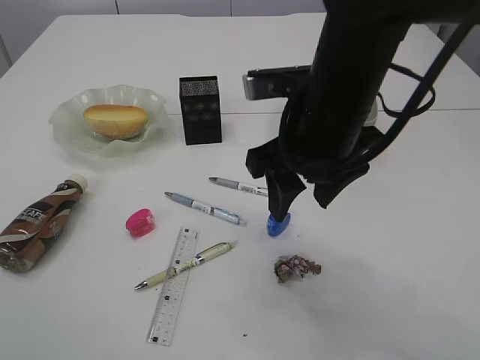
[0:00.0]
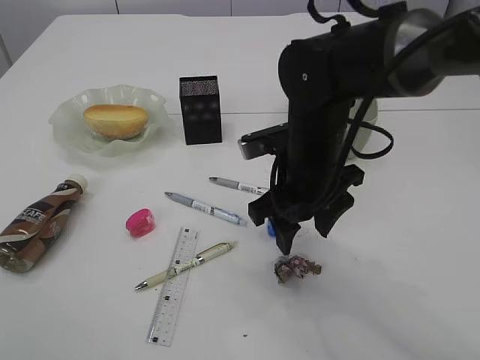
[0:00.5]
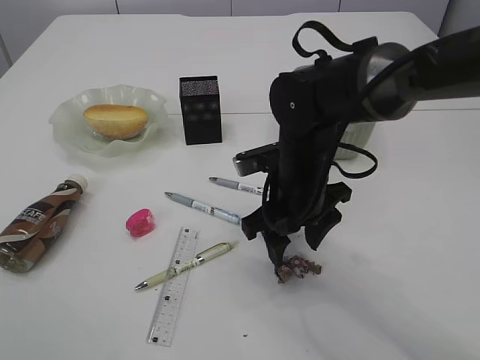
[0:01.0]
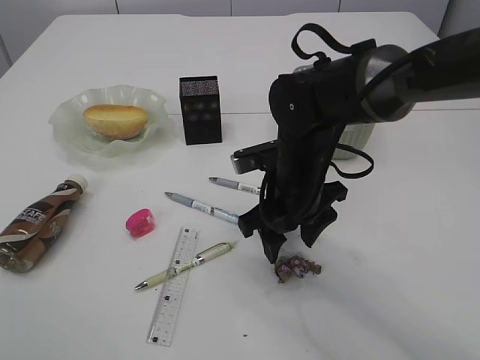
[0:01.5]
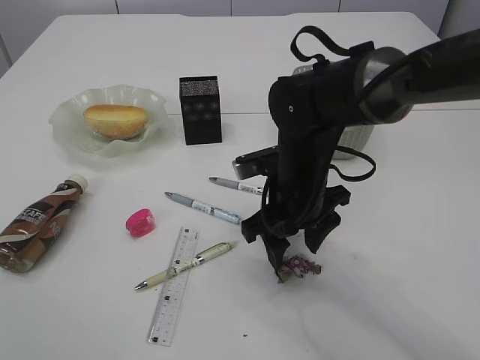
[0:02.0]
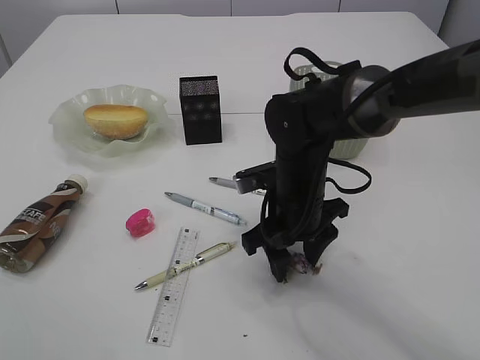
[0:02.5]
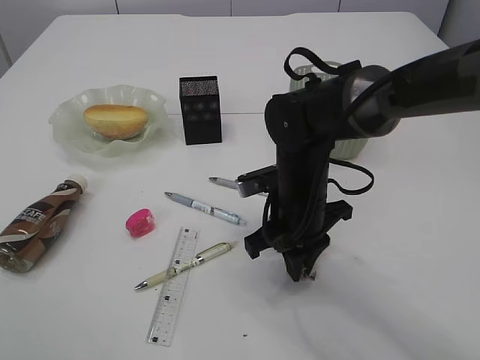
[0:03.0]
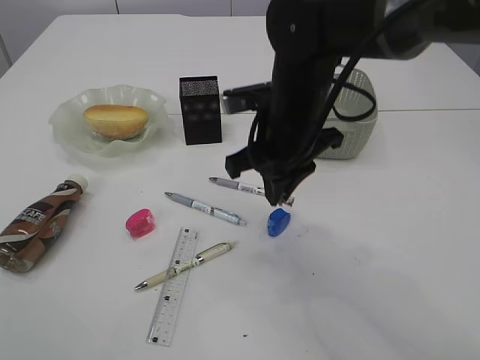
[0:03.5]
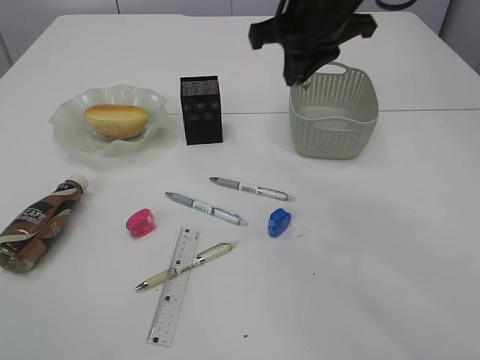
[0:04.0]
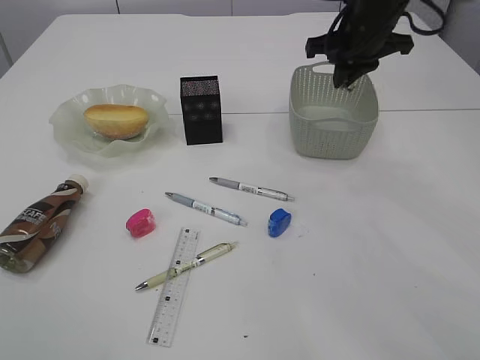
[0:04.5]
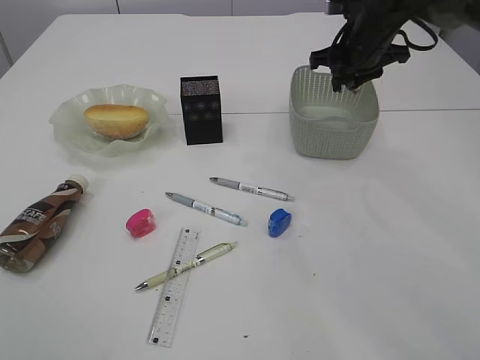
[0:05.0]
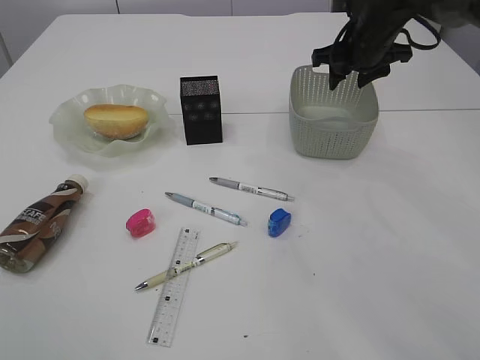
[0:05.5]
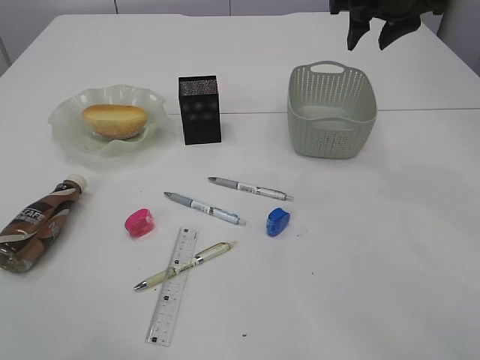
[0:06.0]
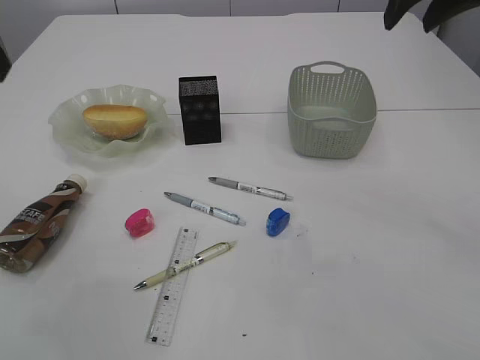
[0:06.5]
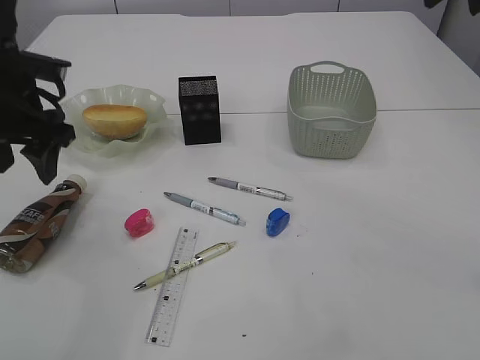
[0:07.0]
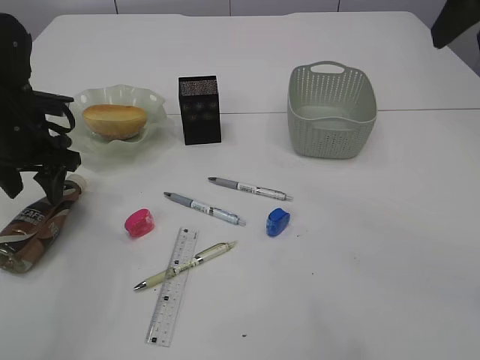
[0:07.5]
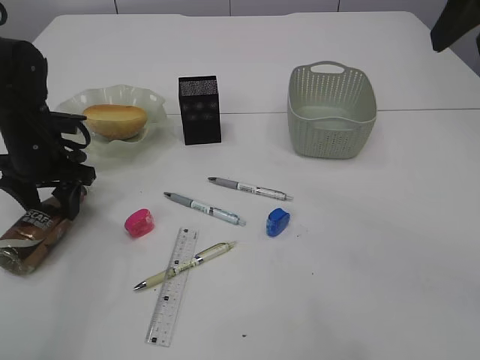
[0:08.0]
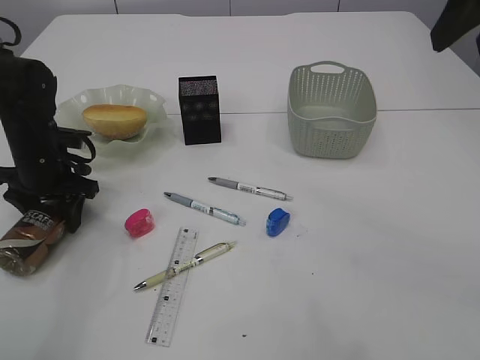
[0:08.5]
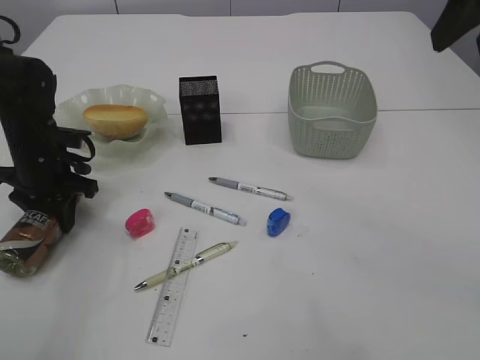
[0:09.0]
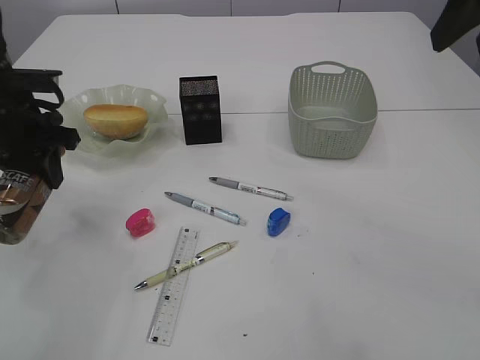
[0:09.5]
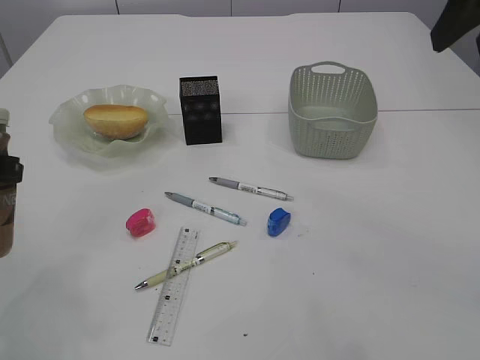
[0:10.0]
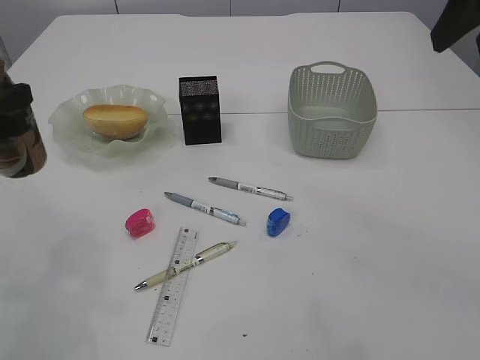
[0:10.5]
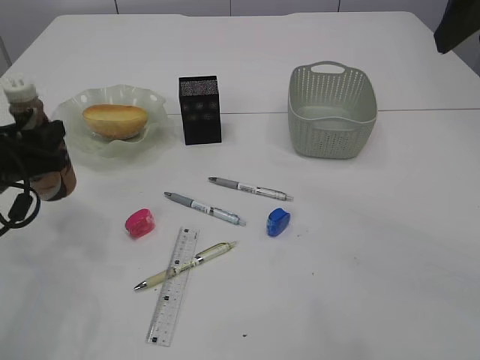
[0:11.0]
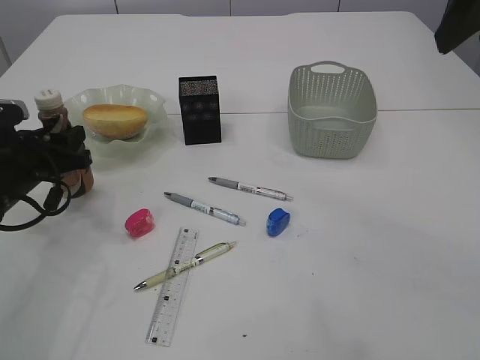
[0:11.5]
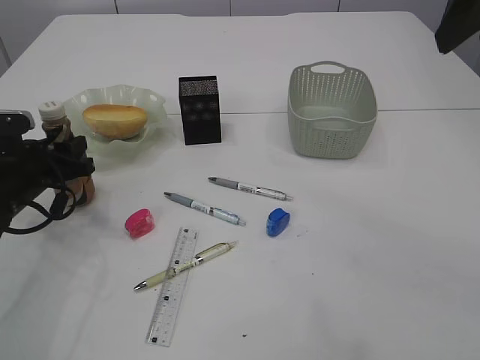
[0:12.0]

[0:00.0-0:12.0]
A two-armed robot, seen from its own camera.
Step, 0:00.0 to 0:03.0: Pick up the waste paper.
Step, 0:03.5 to 0:05.0: Place the waste paper in the basket.
Step, 0:05.5 to 0:09.5: Pick up the bottle with the left arm.
0:00.0 to 0:02.0: The right gripper is displaced downward by about 10 cm.
0:02.0 to 0:04.0: The right gripper shifts approximately 20 cm upward, and closes.
0:04.0 to 0:06.0: The right gripper heads to the right and forward, covering some 15 cm, and opens its fingers.
0:06.0 to 0:08.0: The right gripper travels backward and upward by some 20 cm, while the left gripper travels downward and forward by about 35 cm.
0:08.0 to 0:10.0: The left gripper goes roughly 15 cm backward and upward, and closes.
0:10.0 to 0:12.0: The left gripper goes about 15 cm downward and forward.

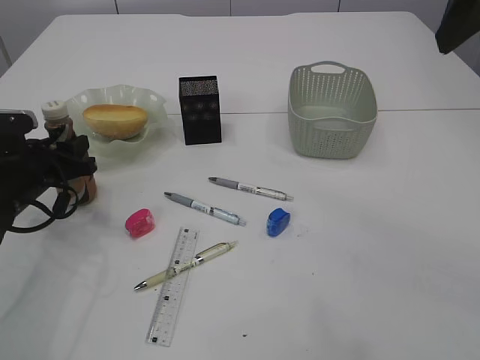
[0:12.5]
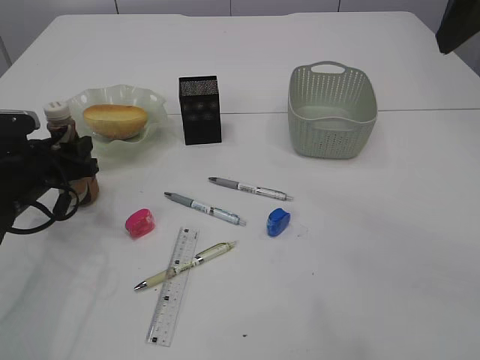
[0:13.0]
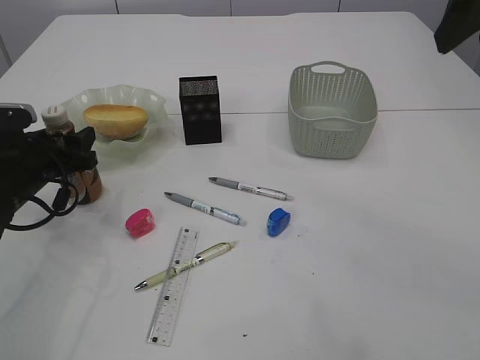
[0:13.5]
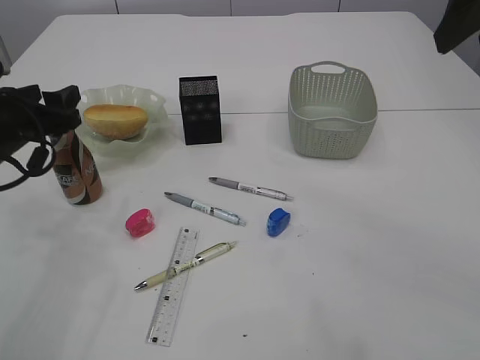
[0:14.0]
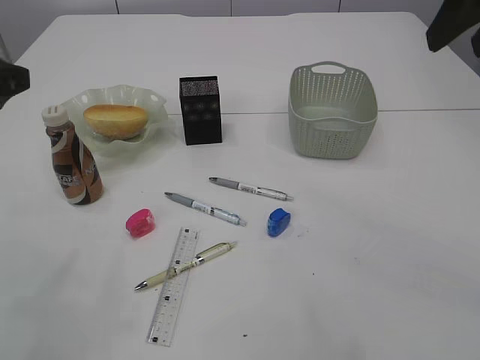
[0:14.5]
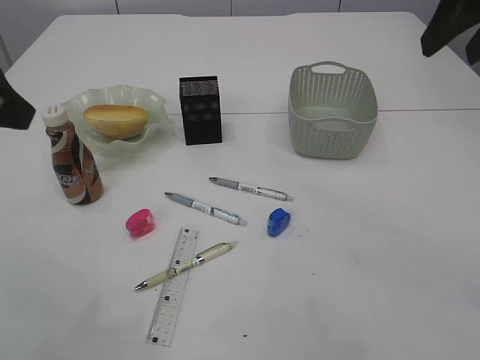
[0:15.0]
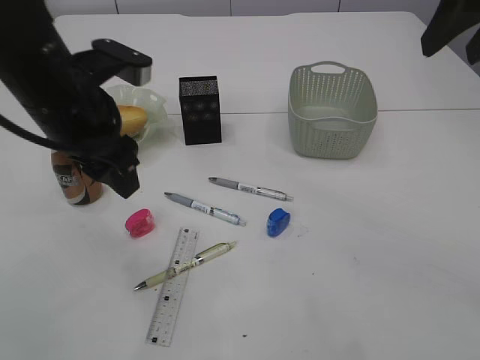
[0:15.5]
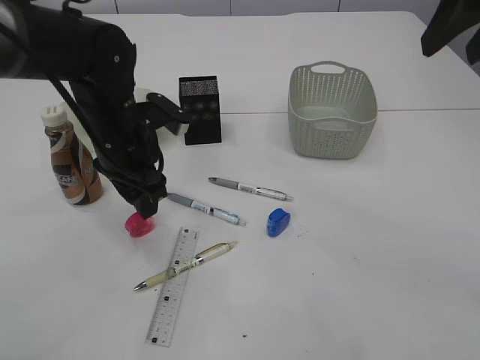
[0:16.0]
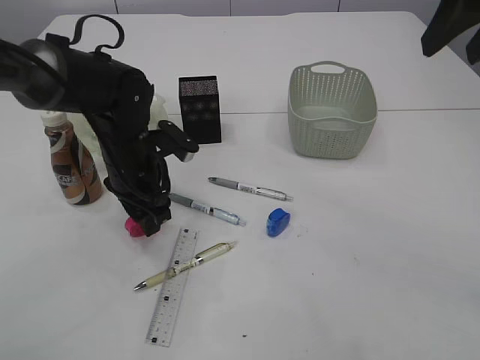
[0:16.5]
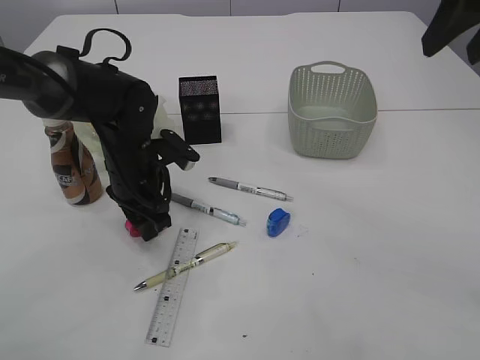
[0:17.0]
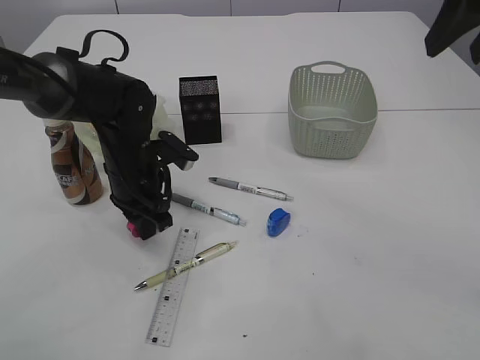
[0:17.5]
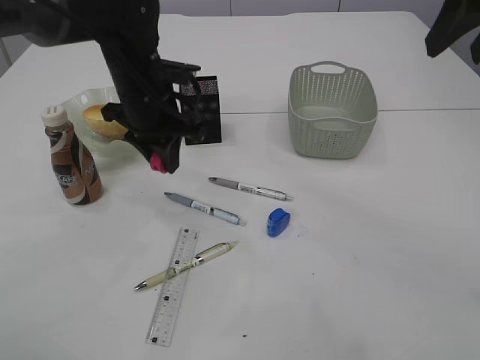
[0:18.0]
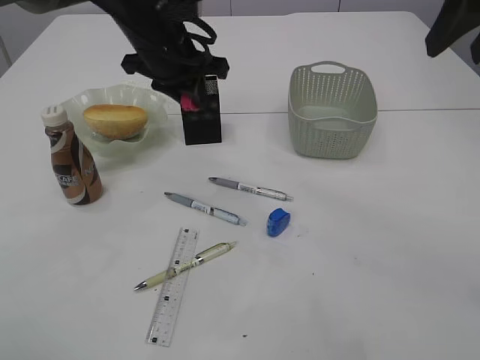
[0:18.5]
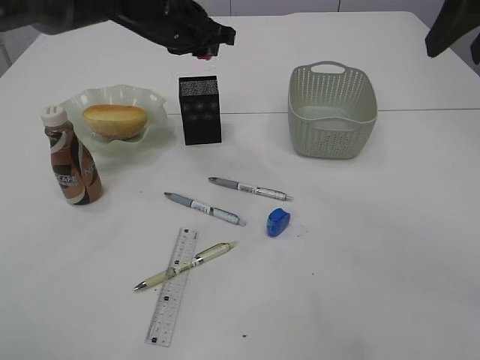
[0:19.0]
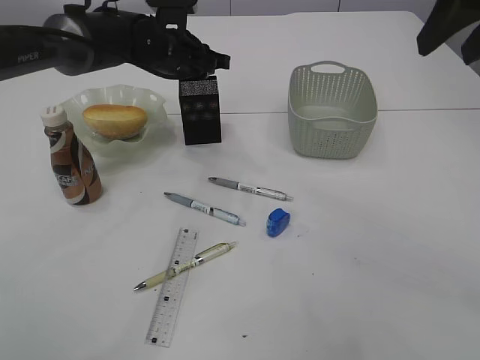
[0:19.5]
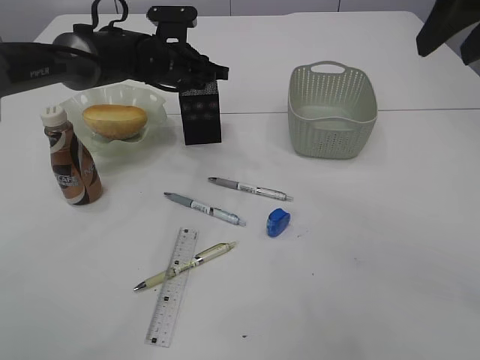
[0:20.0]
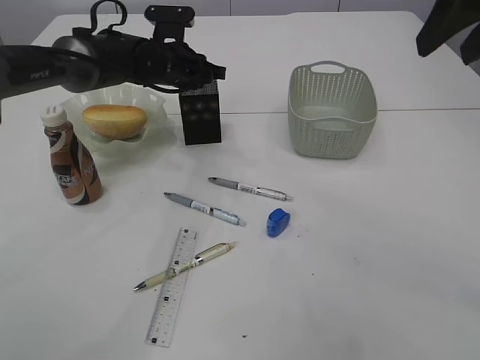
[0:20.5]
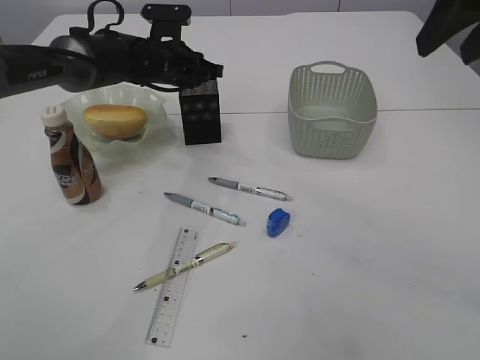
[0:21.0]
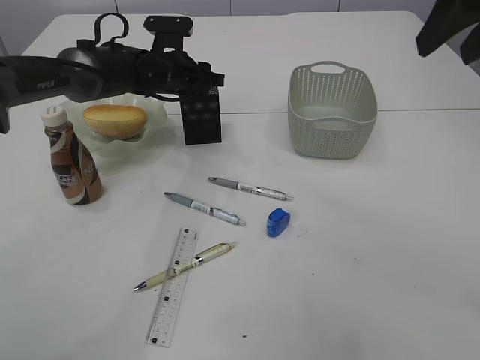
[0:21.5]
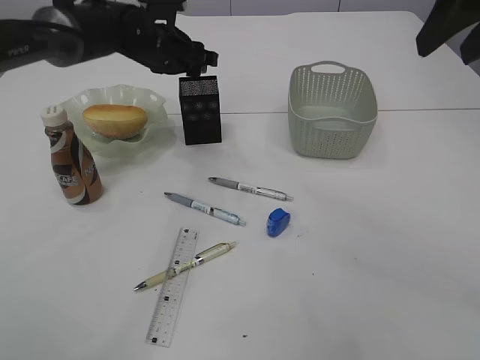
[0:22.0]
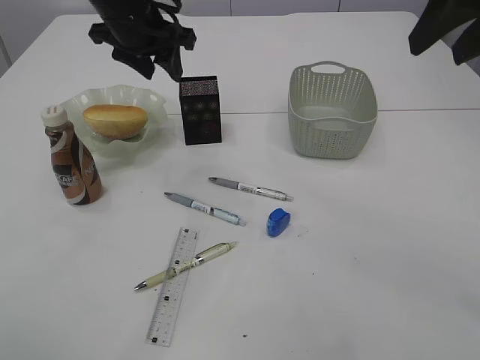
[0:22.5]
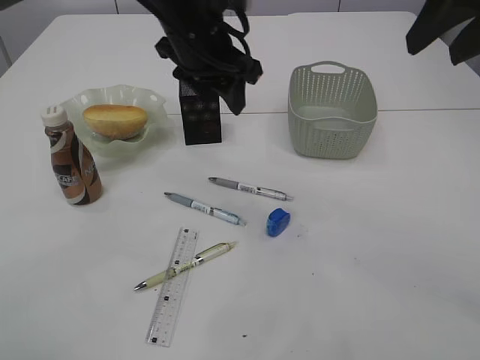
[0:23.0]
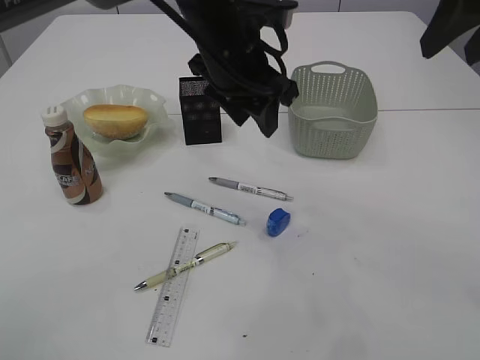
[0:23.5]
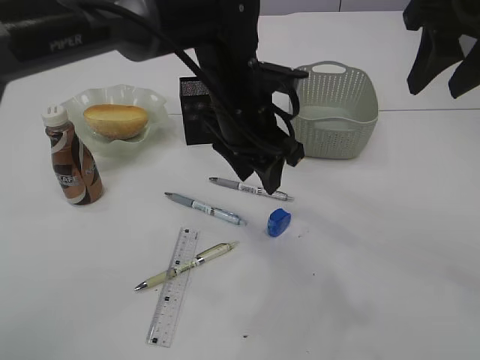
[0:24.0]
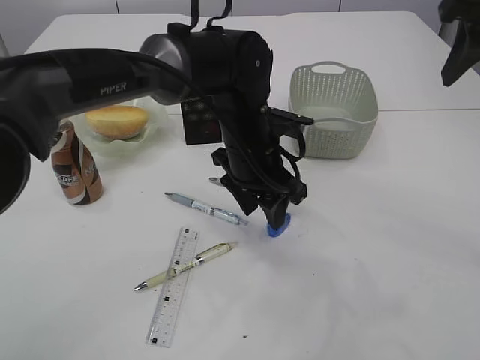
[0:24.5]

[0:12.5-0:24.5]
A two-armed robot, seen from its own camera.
Step, 0:14.5 to 0:18.0: Pick up the red pencil sharpener.
Step, 0:18.5 to 0:21.5: Place the red pencil sharpener into the pen holder.
0:12.5 to 0:14.5: The left gripper goes approximately 20 cm upward and backward, and opens its fingers.
0:14.5 to 0:16.5: The left gripper heads downward, to the right and forward, covering approximately 25 cm.
0:16.5 to 0:18.5: The left gripper shifts approximately 15 cm upward and forward, and closes up.
0:18.5 to 0:20.5: The left gripper heads forward and downward, covering about 10 cm.
0:20.5 to 0:22.5: The left gripper heads upward and backward, covering approximately 10 cm, and opens its fingers.
0:22.5 to 0:24.5: The right gripper ends up approximately 10 cm from where it was, while the left gripper is displaced to the right, downward and backward by roughly 20 cm.

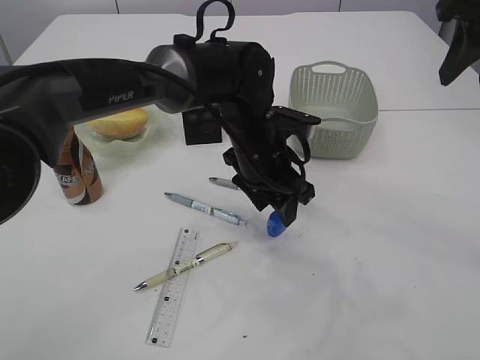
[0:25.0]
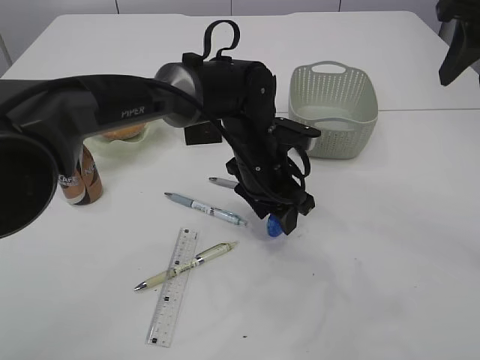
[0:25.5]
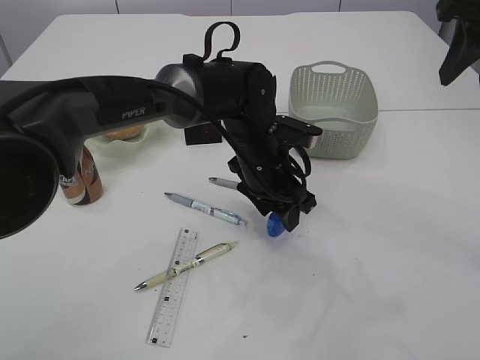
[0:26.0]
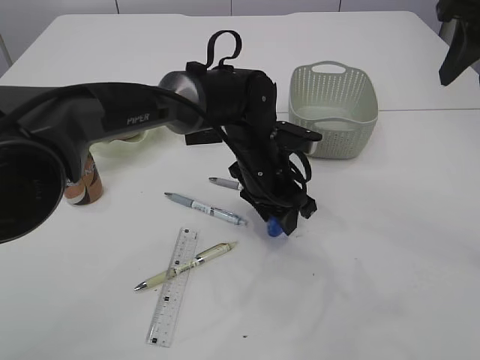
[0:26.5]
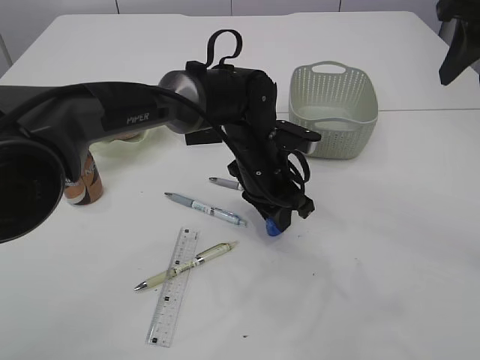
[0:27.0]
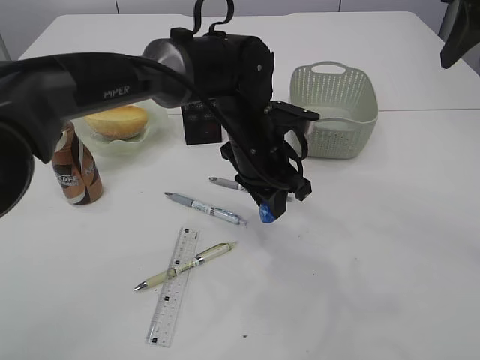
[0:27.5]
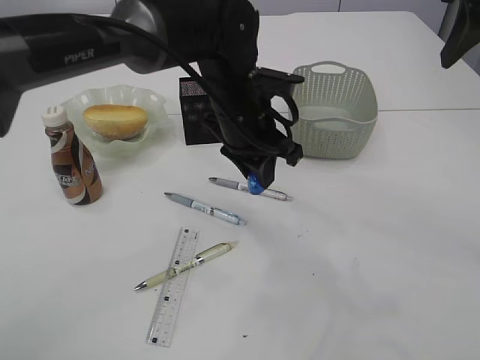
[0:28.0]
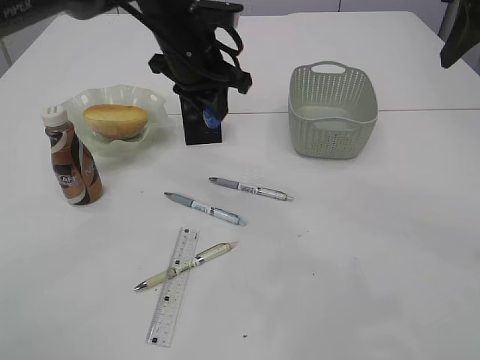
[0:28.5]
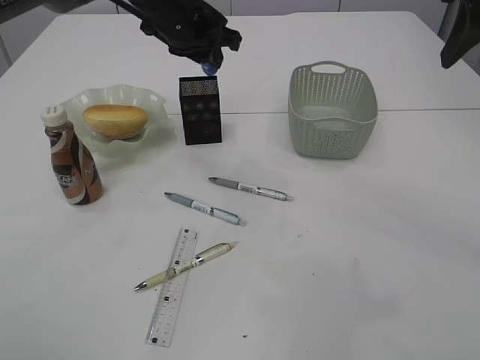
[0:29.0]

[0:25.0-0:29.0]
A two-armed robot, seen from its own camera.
Step, 0:25.0 to 0:27.5: Pick up the blue pencil sharpener.
0:25.0 to 0:27.0: The left gripper closes up.
0:27.0 to 0:29.0: The left gripper travels upward, to the left and forward by approximately 20 cm.
